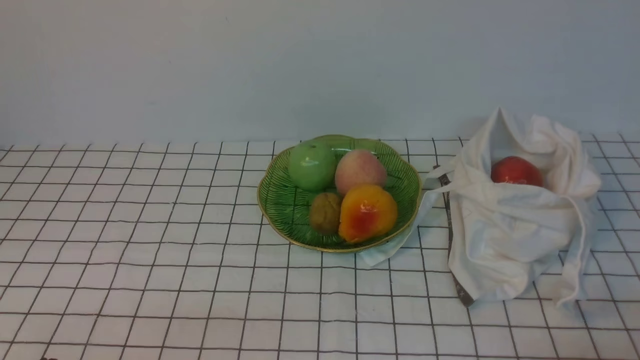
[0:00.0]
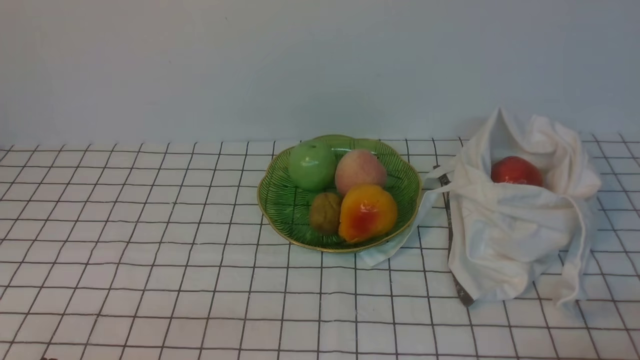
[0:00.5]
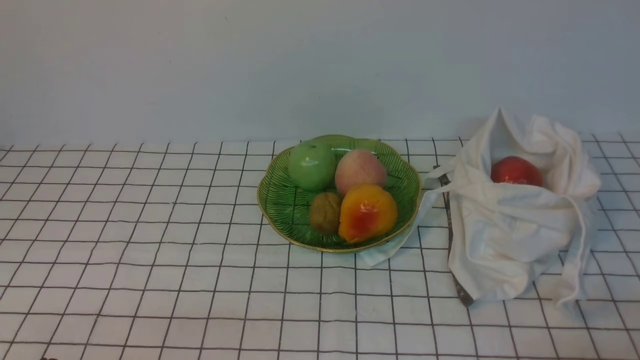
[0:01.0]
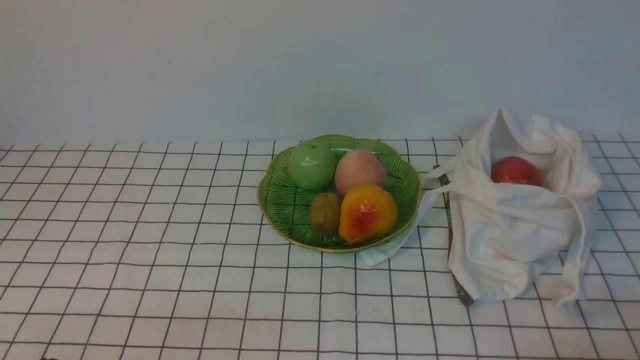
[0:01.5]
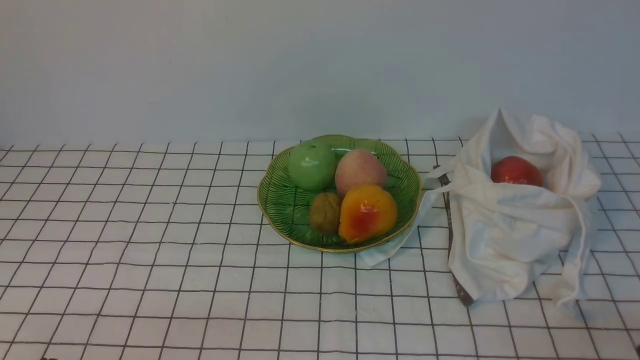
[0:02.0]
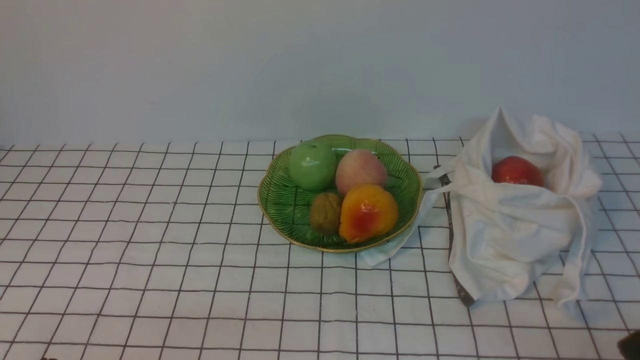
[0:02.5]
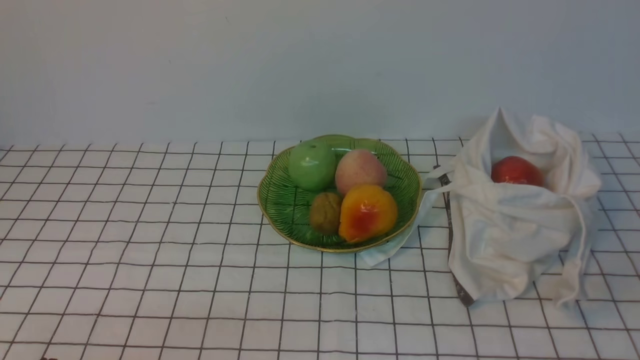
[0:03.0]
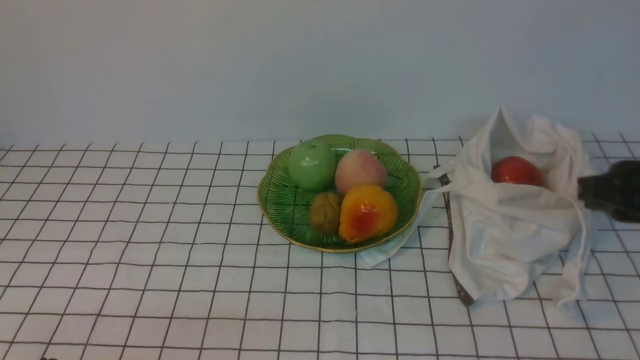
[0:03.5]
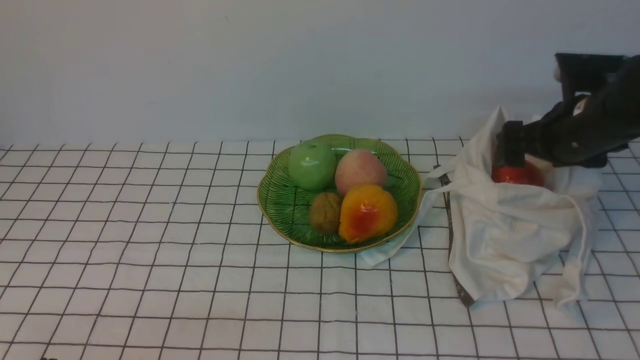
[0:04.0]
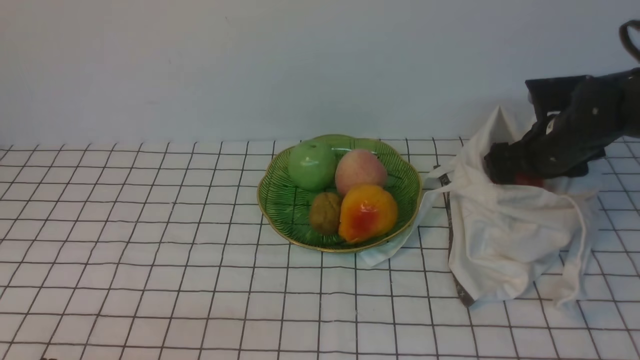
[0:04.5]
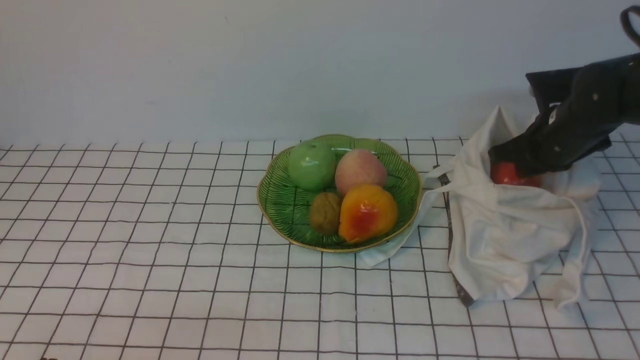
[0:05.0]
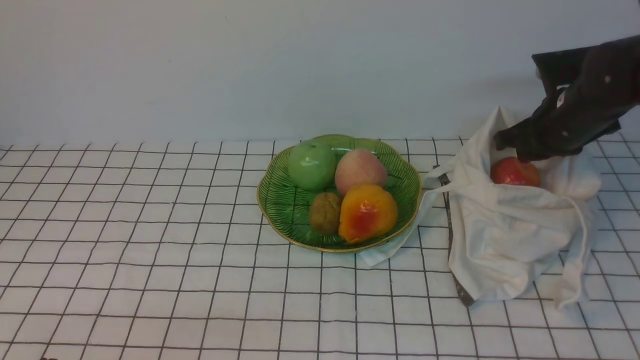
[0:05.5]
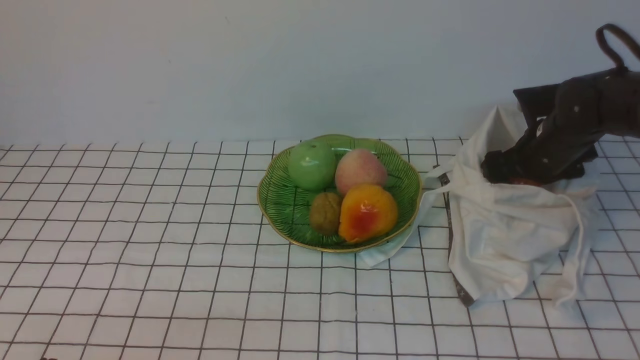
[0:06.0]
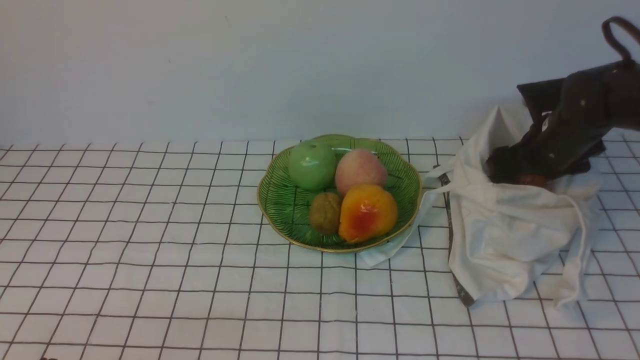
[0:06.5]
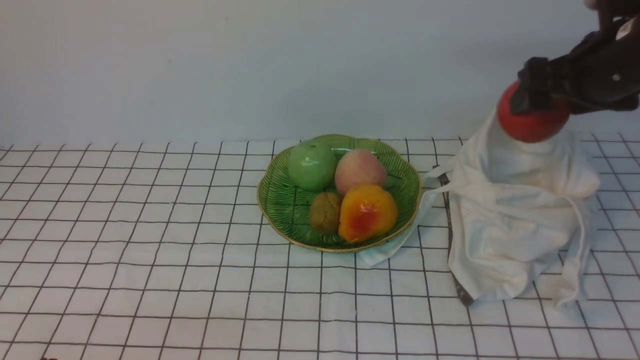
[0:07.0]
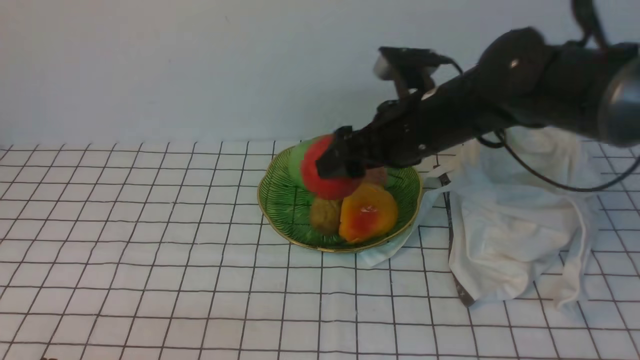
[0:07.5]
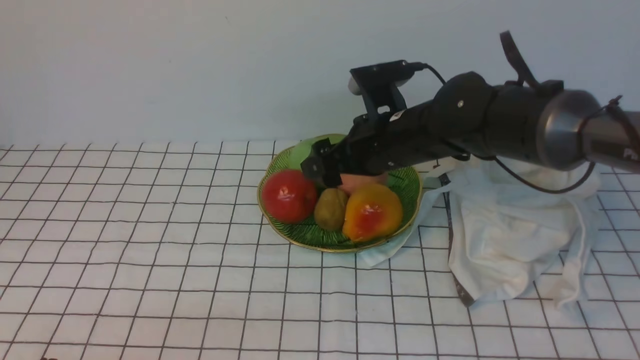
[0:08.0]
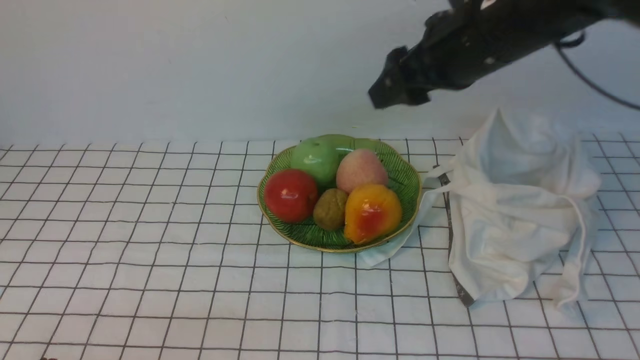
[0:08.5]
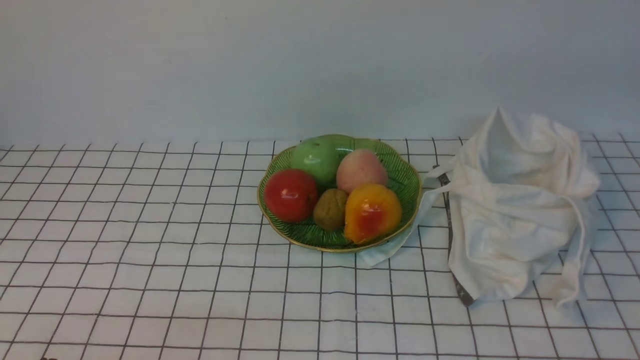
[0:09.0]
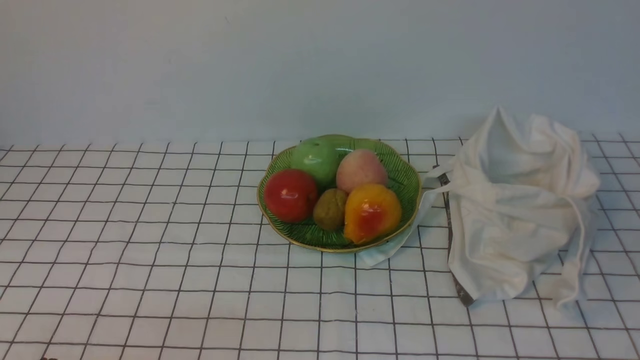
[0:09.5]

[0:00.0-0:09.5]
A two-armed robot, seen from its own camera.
Step, 0:00.0 to 0:06.5: use the right arm to grab an apple from the bag.
Step, 0:07.0 to 0:08.0: use the right arm to put the apple into the empty plate on the left.
0:02.0 to 0:04.0: The right gripper is displaced forward by about 30 cm, and opens up.
0:04.0 to 0:05.5: The right gripper shifts approximately 5 cm forward, and closes up.
0:05.5 to 0:07.5: The right gripper is displaced to the left by approximately 15 cm, and opens.
0:07.5 to 0:09.5: The right gripper moves backward and to the right, about 30 cm, and closes.

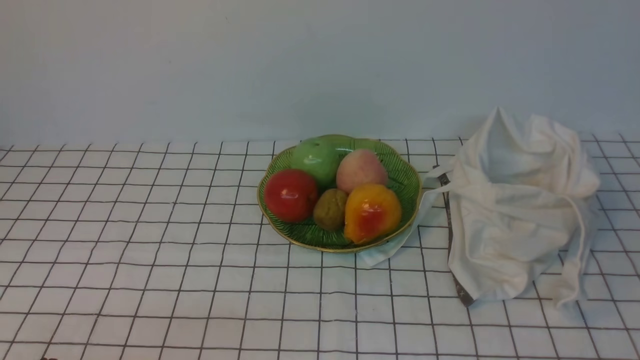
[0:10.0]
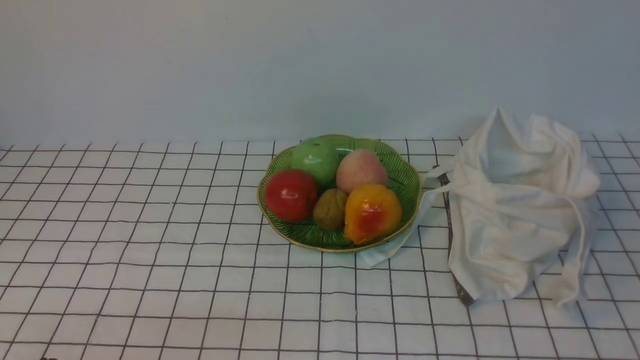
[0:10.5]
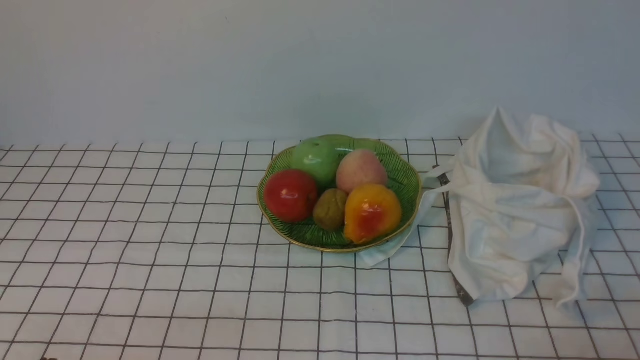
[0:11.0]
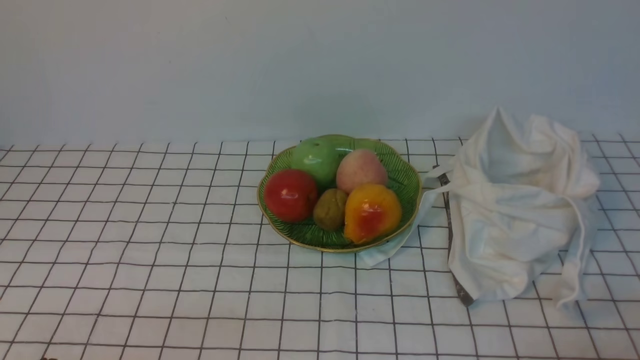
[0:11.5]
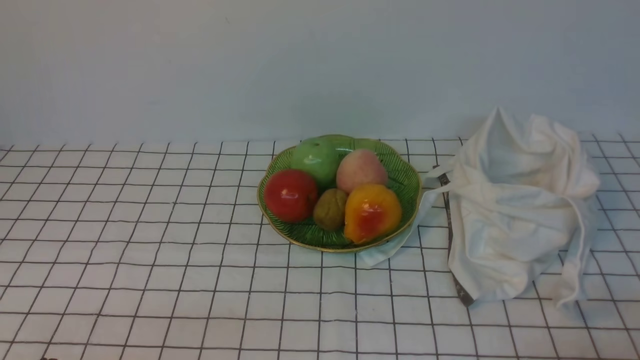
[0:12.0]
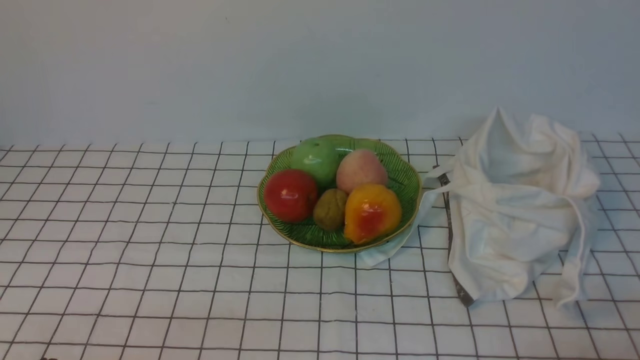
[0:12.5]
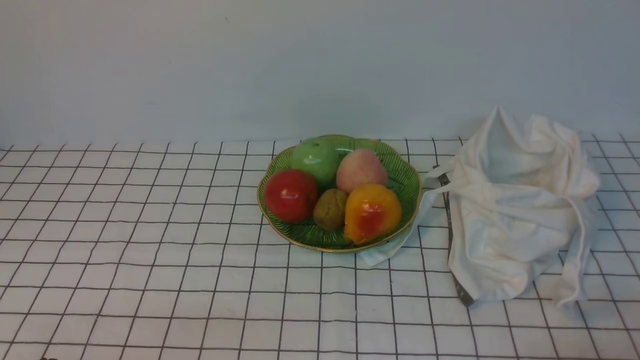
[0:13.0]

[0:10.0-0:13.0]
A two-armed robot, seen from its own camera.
0:11.5 to 0:13.0: Both grippers stay put.

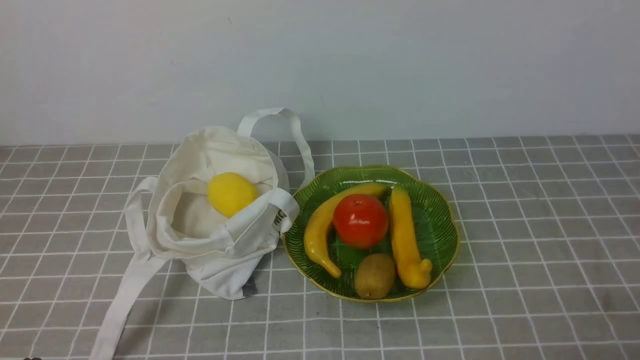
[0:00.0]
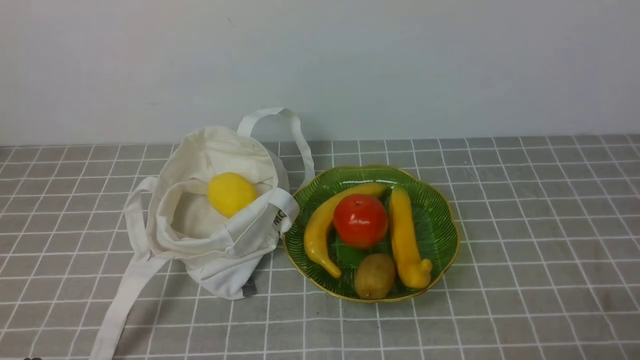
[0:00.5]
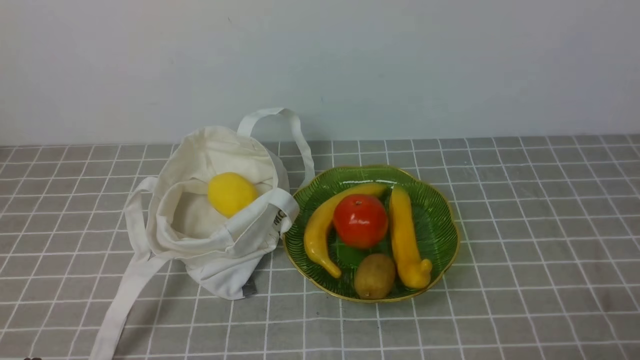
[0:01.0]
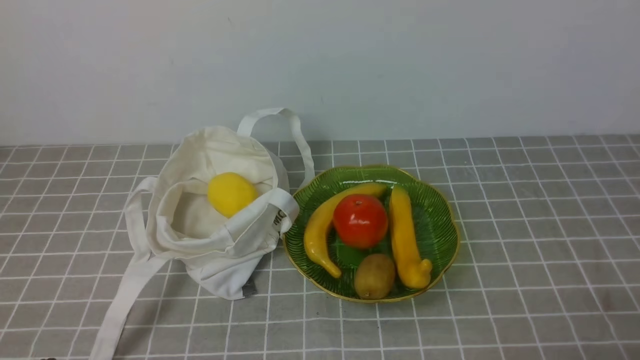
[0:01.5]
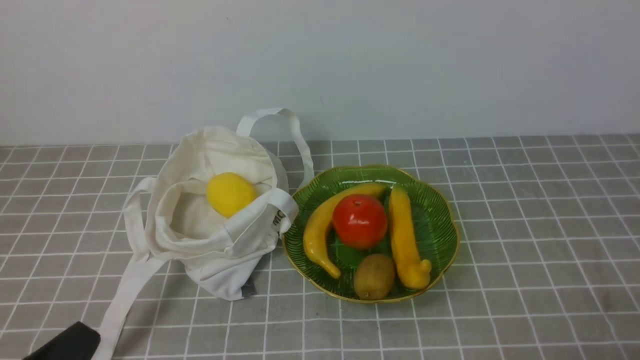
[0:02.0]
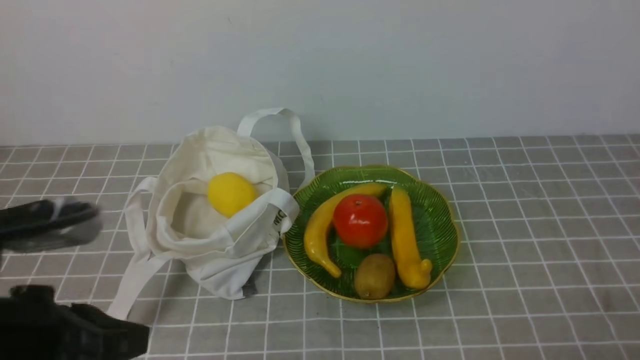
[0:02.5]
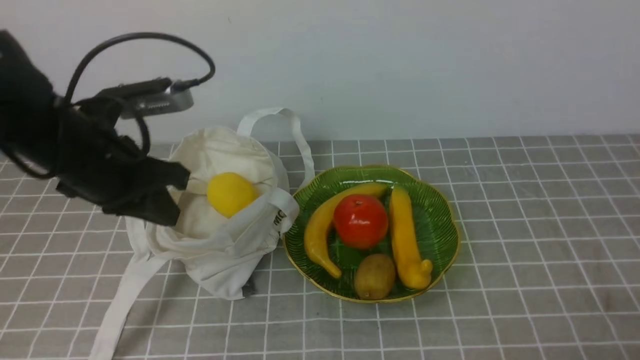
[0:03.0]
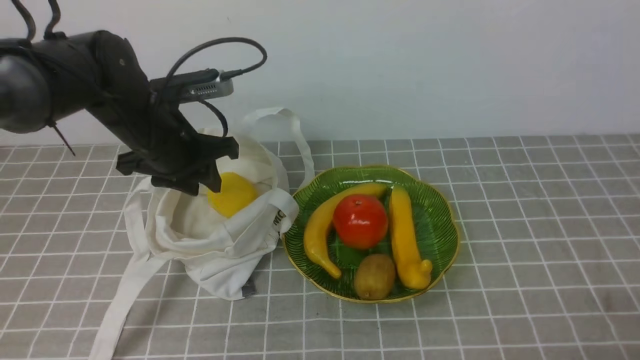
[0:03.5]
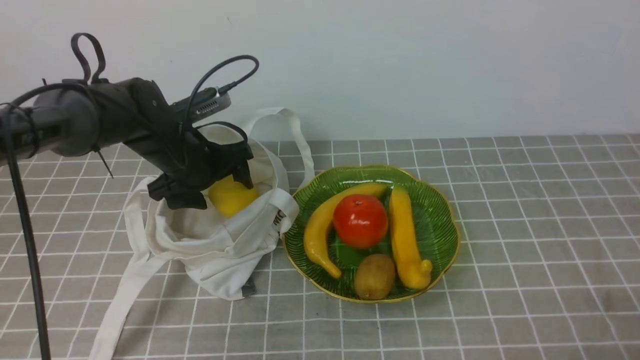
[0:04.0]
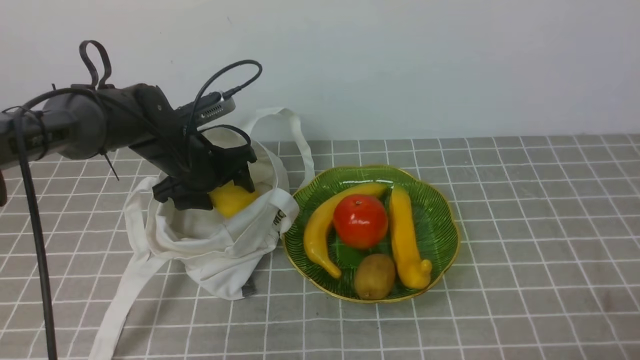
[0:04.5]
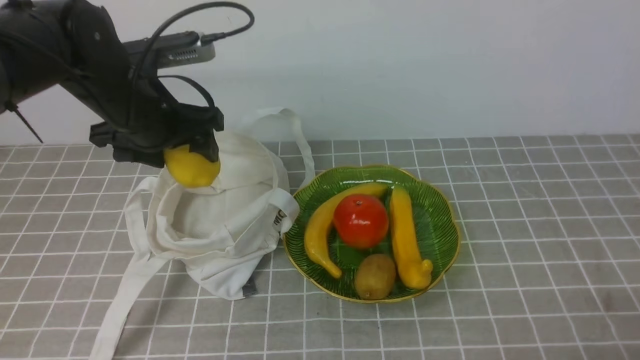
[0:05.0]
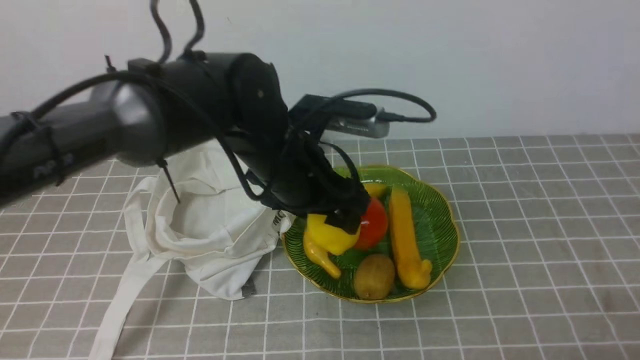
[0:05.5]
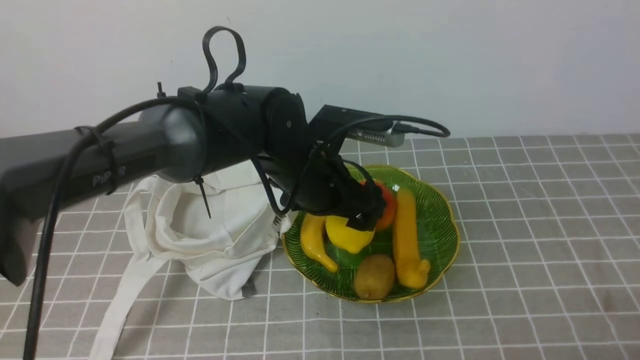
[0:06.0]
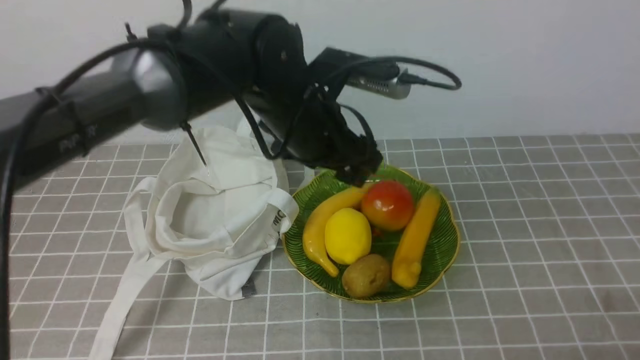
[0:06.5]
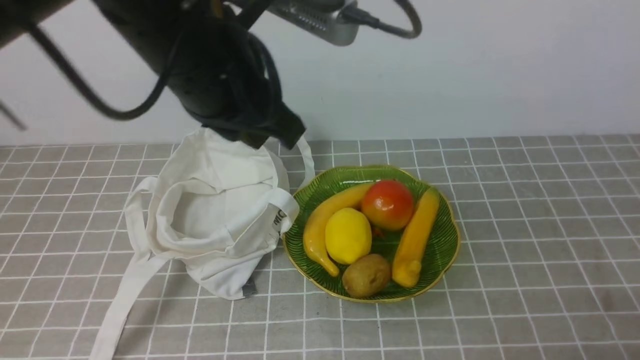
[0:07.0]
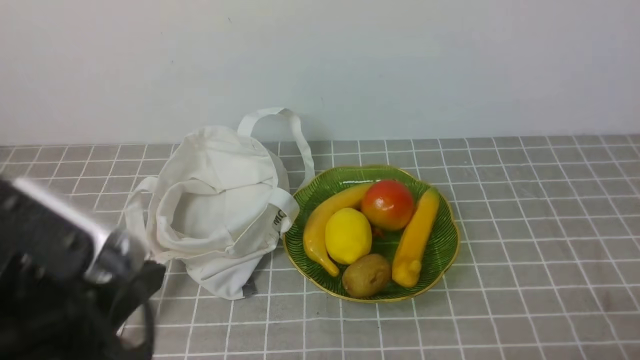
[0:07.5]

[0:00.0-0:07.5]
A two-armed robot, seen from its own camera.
Step, 0:00.0 to 0:04.5: use the left arm to grab a lemon from the bag.
Step, 0:05.0 to 0:06.0: use the left arm to put the lemon into the empty plate on the right.
0:02.0 to 0:04.0: The left gripper travels forward by about 35 cm, and opens its fingers.
0:04.0 to 0:05.5: The left gripper travels to the right, upward and backward by approximately 15 cm.
0:05.5 to 0:07.5: The left gripper heads backward and to the left, covering some 20 cm, and closes its fingers.
